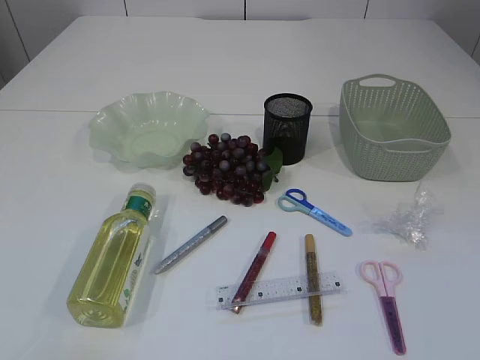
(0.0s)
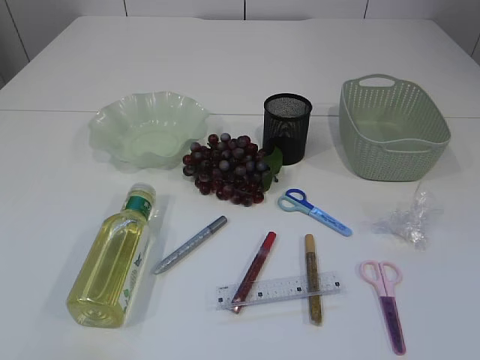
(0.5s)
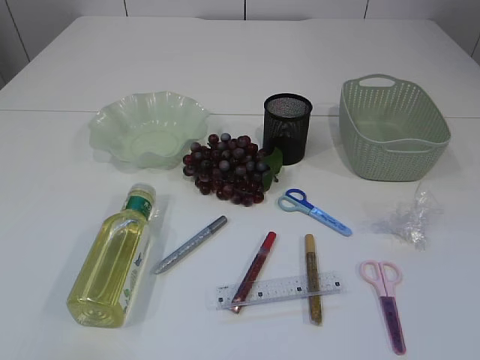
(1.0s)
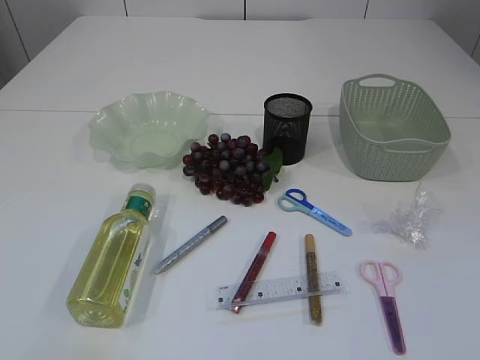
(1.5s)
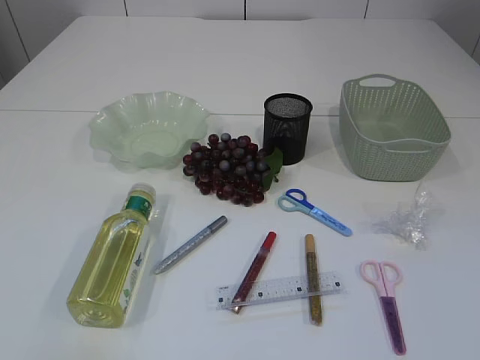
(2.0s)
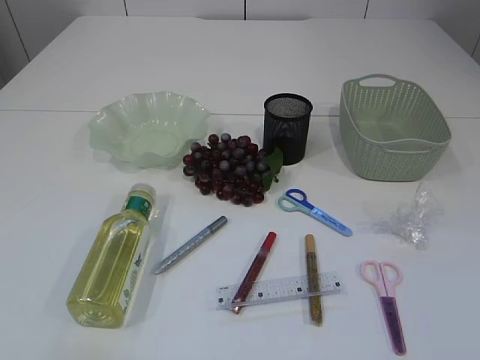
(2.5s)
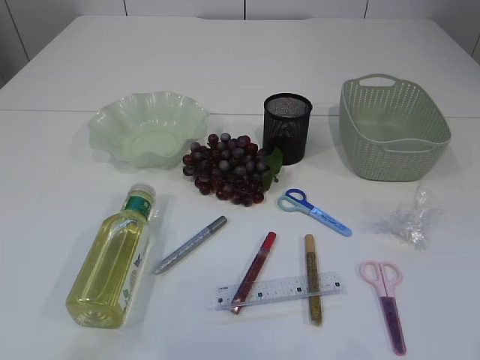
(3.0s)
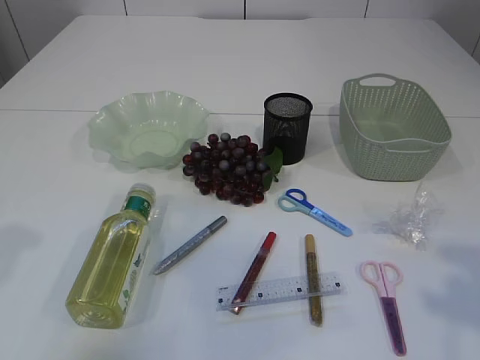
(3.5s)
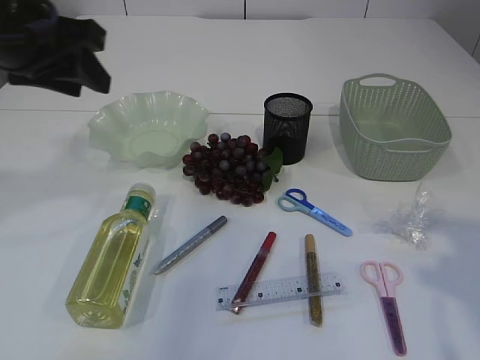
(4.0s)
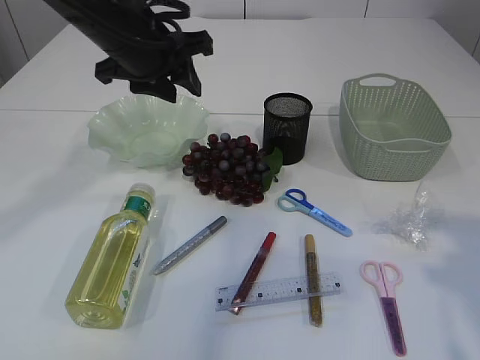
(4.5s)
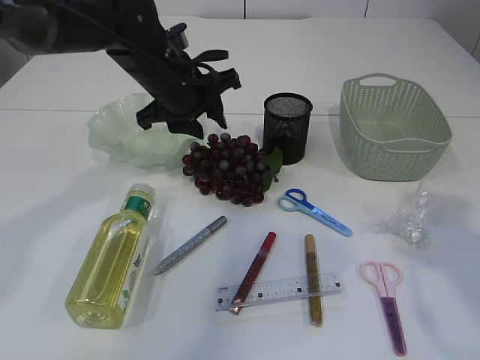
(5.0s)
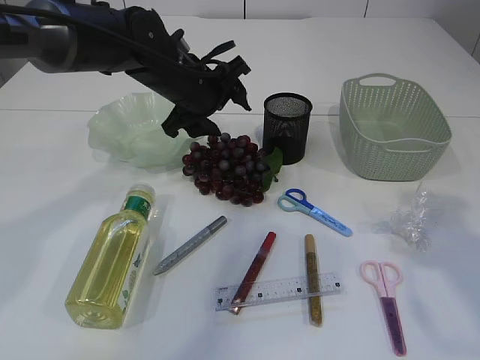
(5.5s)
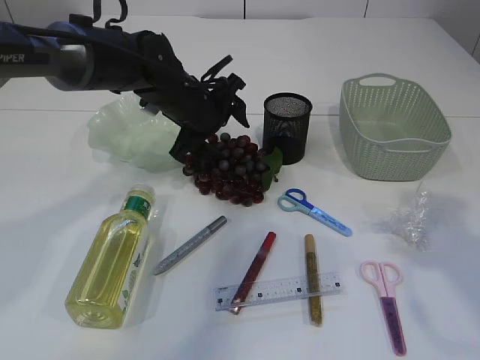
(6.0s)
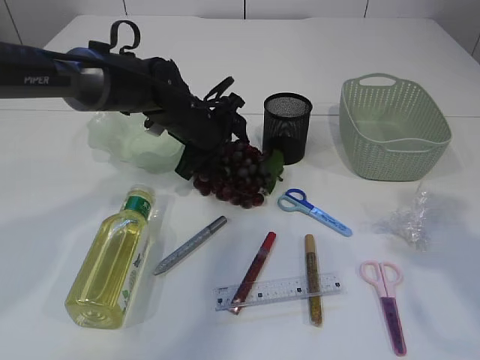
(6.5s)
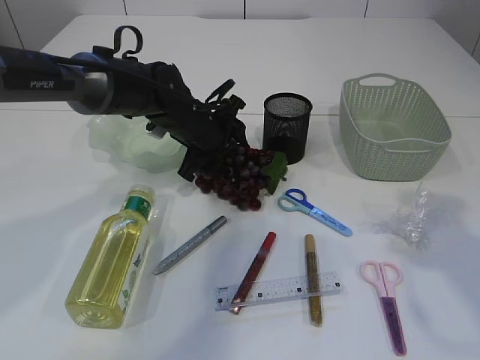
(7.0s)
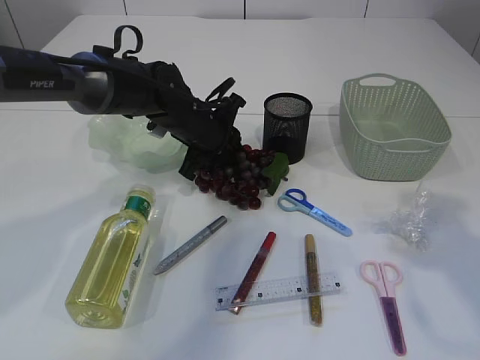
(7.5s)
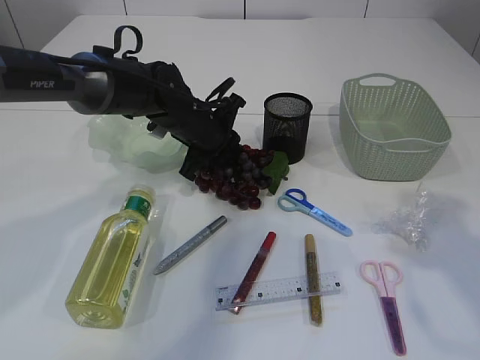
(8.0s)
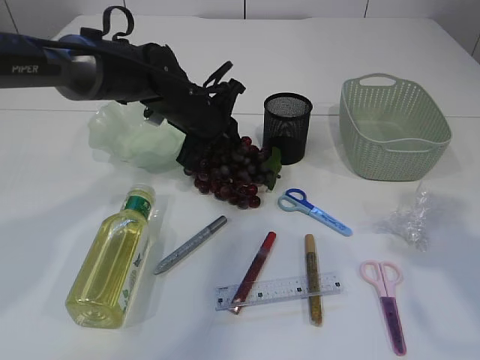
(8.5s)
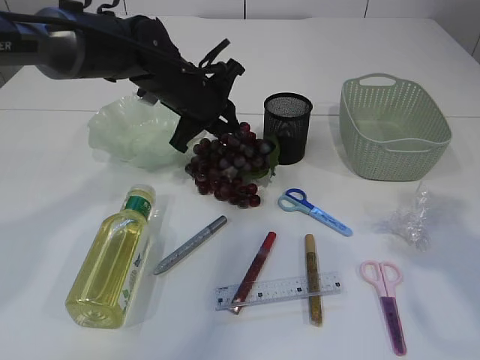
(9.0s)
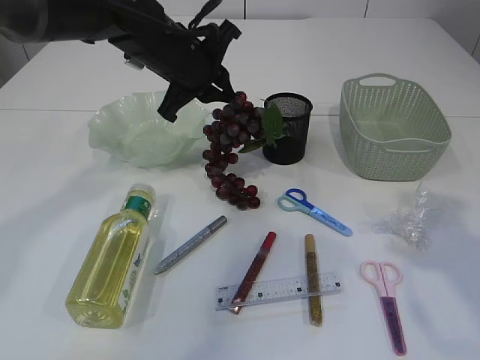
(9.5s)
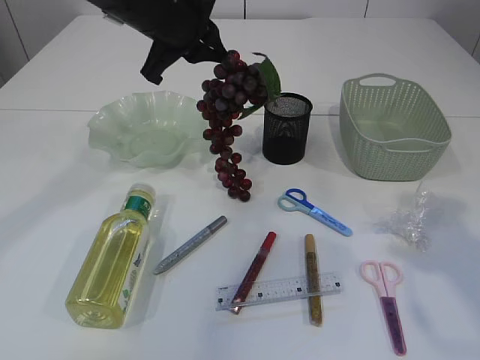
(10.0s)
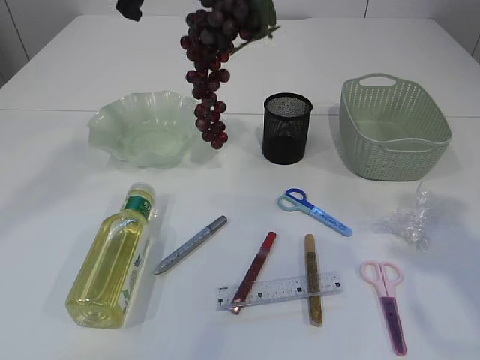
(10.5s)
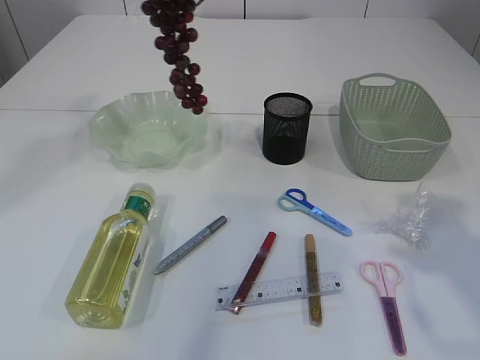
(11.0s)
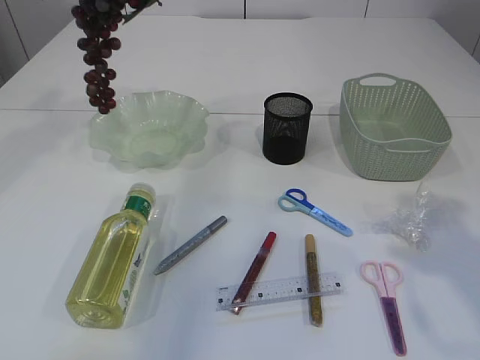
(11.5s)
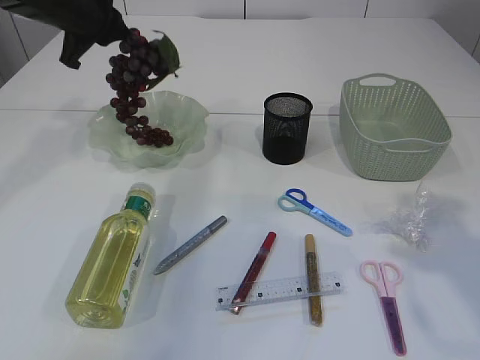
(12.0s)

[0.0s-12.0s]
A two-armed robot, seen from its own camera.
Step, 0.0s to 10.5s: Pick up the grapes.
2.0s to 4.0s: The right gripper heads forward, covering some 15 cm. The left gripper shifts approximately 35 cm forward.
4.0s to 6.0s: The left gripper moves downward, to the right and forward, about 25 cm, and opens its fingers. The right gripper is displaced forward by approximately 5 cm.
6.0s to 8.0s: The left gripper closes.
8.0s to 10.0s: The left gripper shifts about 15 cm upward.
10.0s to 12.0s: The left gripper moves to the left and forward, roughly 15 cm.

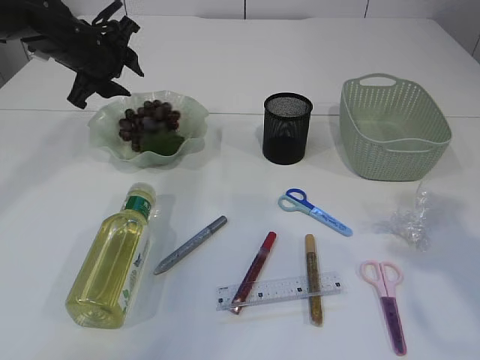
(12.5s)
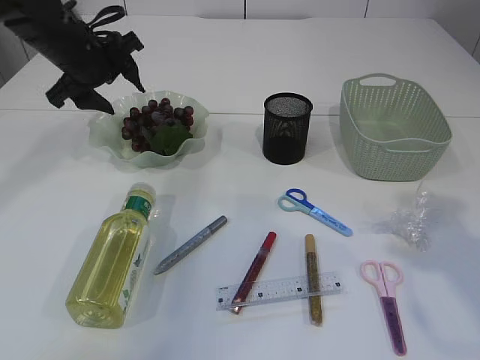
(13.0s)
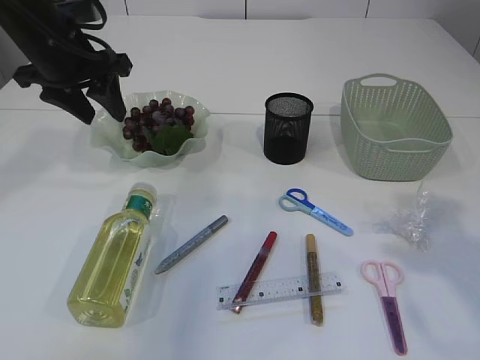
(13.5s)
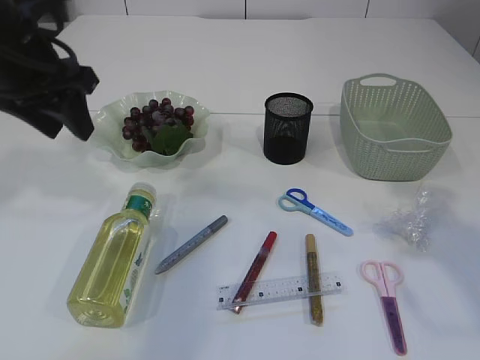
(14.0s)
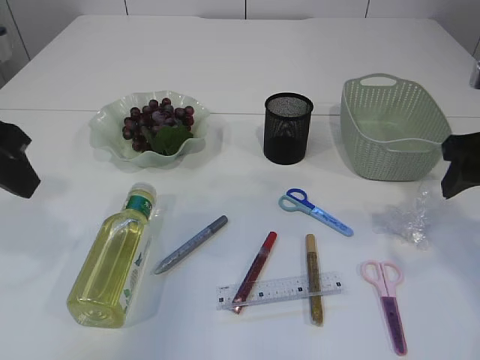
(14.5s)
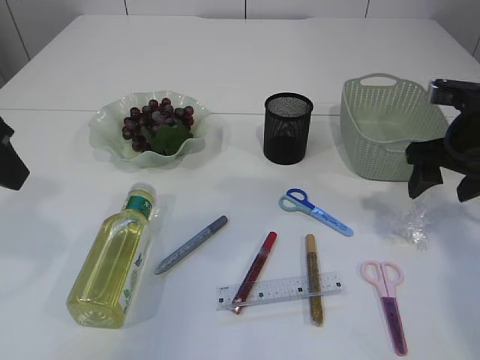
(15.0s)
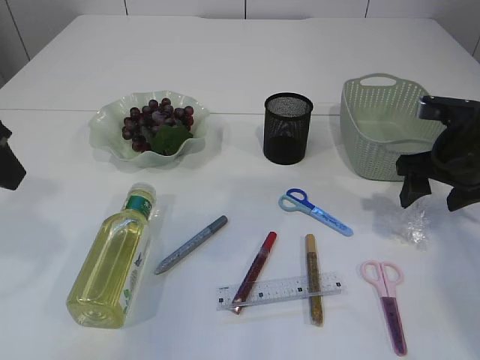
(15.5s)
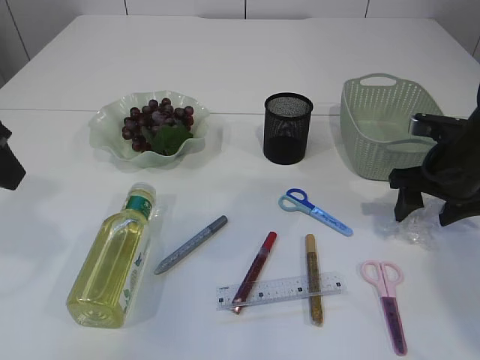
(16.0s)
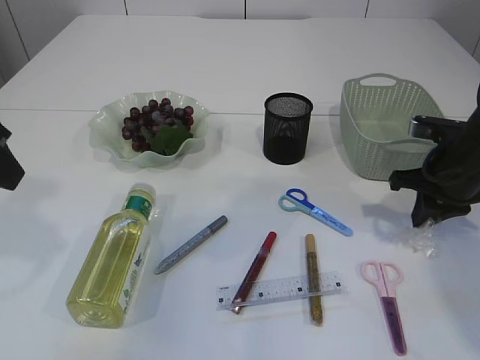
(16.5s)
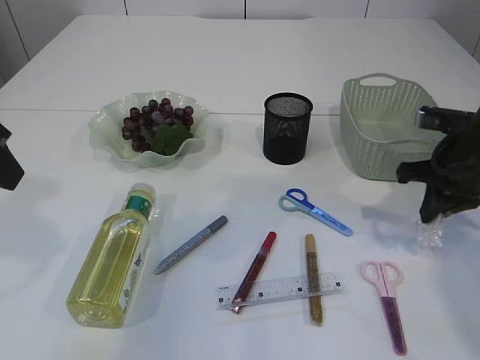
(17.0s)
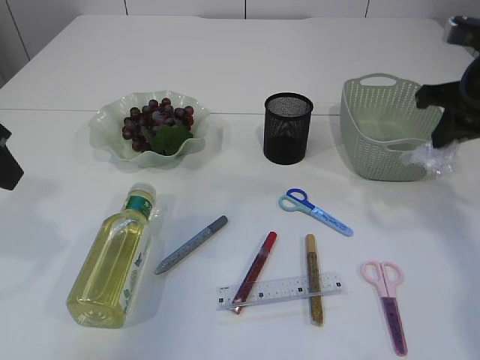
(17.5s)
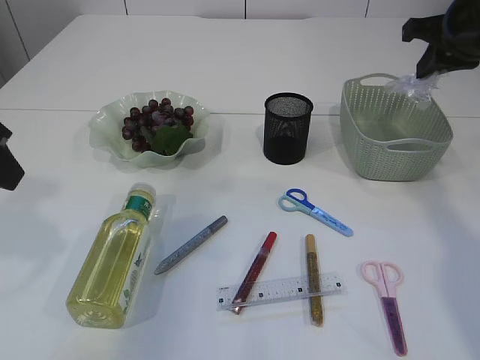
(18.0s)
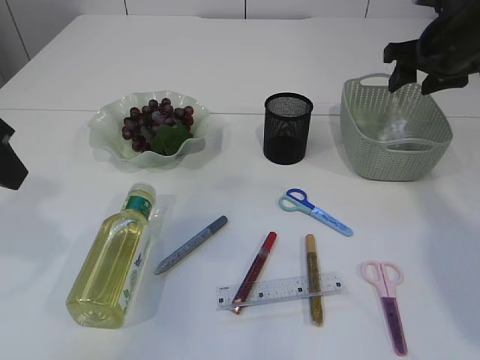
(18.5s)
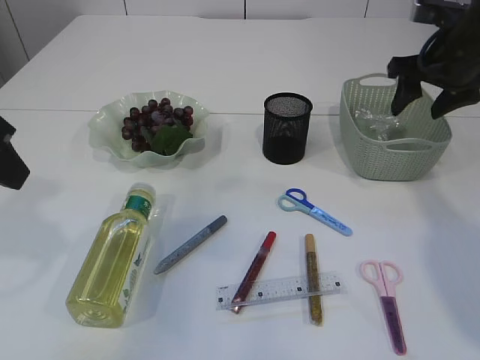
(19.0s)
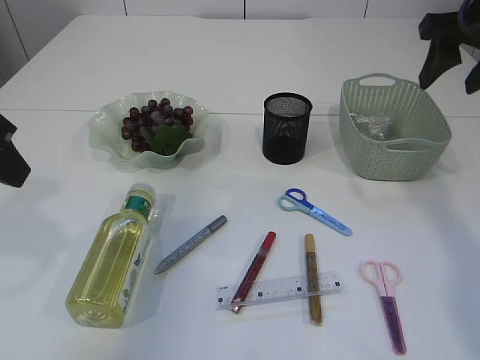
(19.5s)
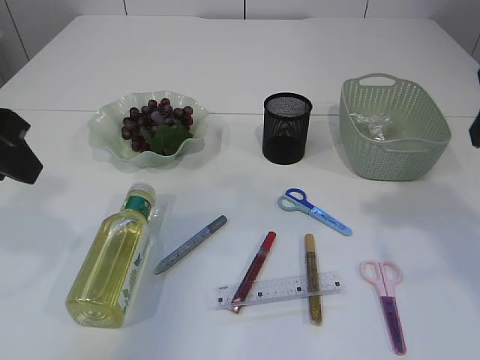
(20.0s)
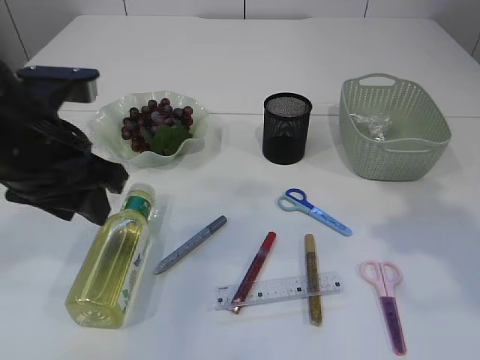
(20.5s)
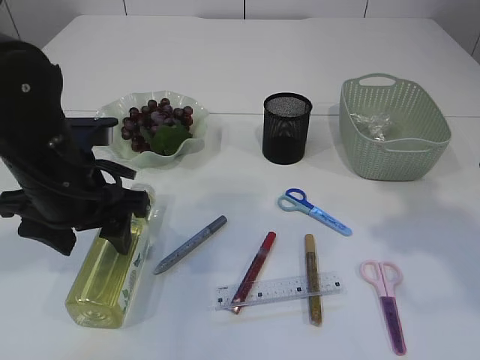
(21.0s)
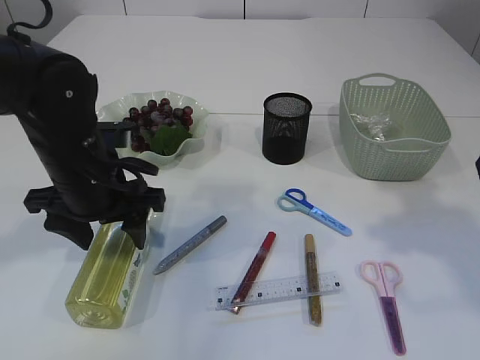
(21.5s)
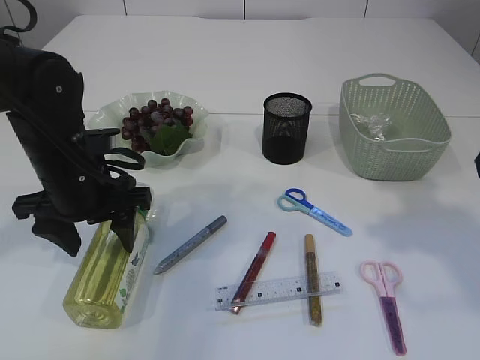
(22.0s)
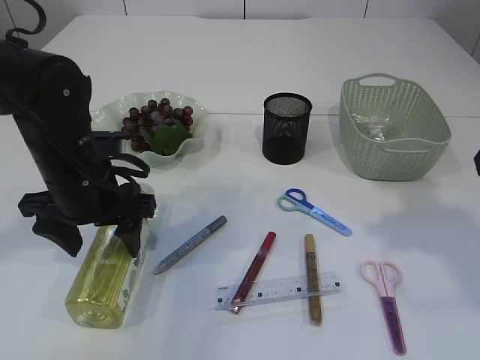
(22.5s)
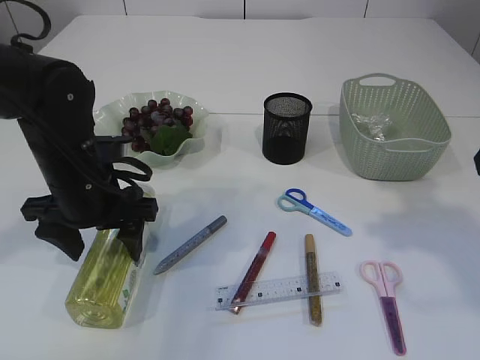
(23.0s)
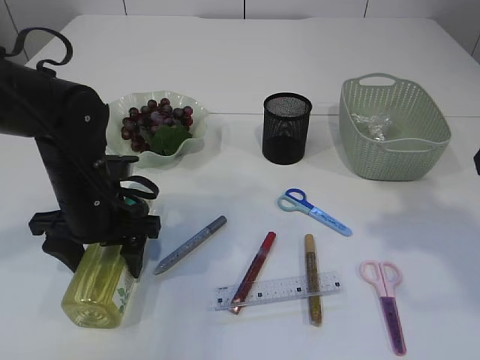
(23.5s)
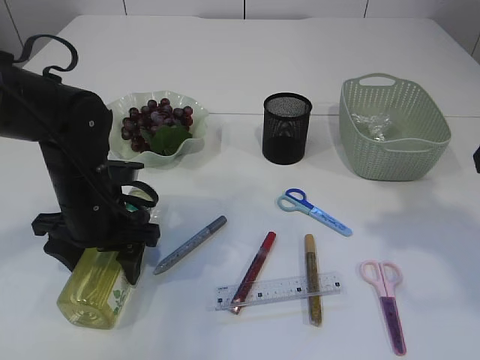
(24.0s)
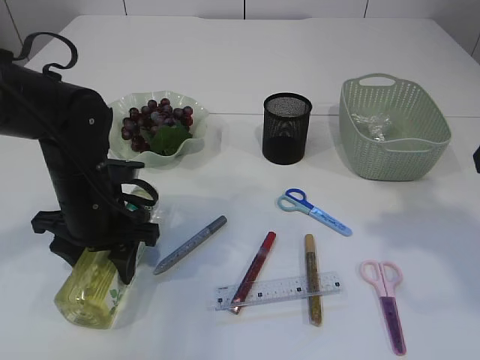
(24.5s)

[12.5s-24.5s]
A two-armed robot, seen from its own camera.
Step, 13.5s to 17.0s: Pick up the plastic.
Step, 17.5s to 19.0s: Place the plastic in the basket.
12.5s to 14.5s: The right gripper heads forward and downward, covering about 10 cm, while the left gripper is displaced backward by approximately 25 cm.
14.5s to 16.5s: The right gripper moves downward and forward, some 10 cm, and closes.
16.5s to 18.5s: The right gripper shifts some 15 cm upward and forward, and opens up.
18.5s to 20.5s: The right gripper moves backward, approximately 20 cm. The left gripper heads to the right and downward, covering some 10 cm.
20.5s to 22.5s: The left gripper travels downward and forward by about 10 cm, and opens up.
22.5s to 24.5s: There are only small adjustments of the grippers.

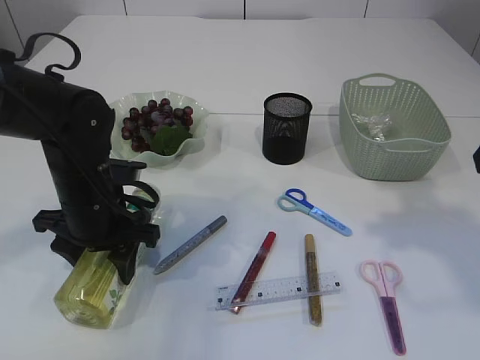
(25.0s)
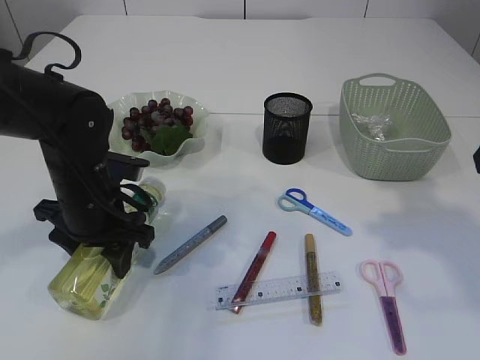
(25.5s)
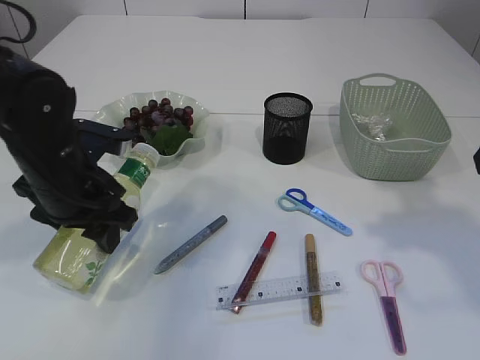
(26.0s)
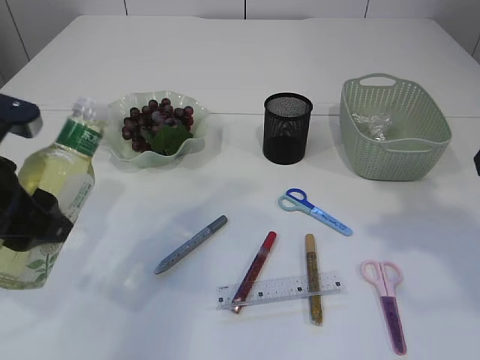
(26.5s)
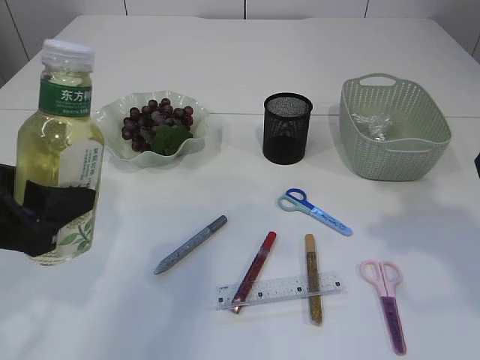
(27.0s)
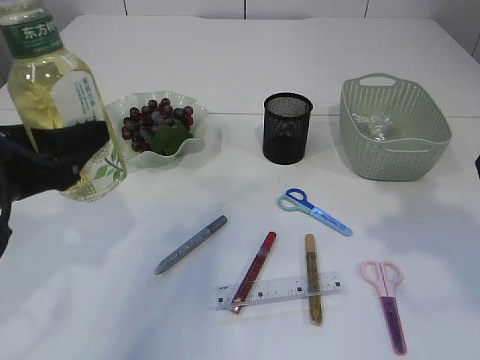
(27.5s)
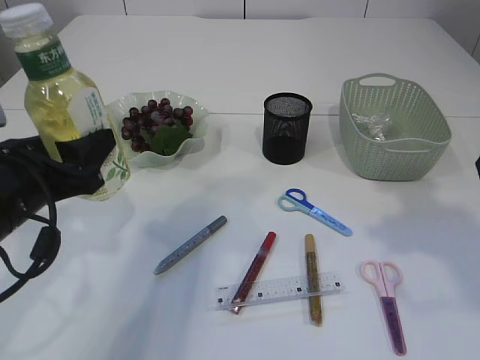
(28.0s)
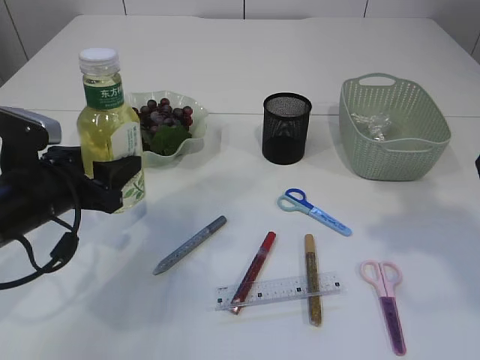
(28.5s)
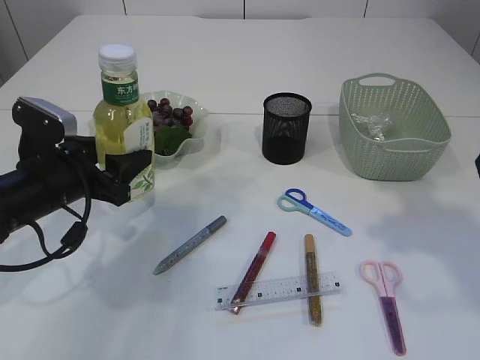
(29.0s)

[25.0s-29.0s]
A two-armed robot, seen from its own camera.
25.0s to 27.0s: The left gripper travels backward, upward and to the left by approximately 15 cm.
27.0s to 29.0s: The left gripper is displaced forward and downward by about 15 cm.
